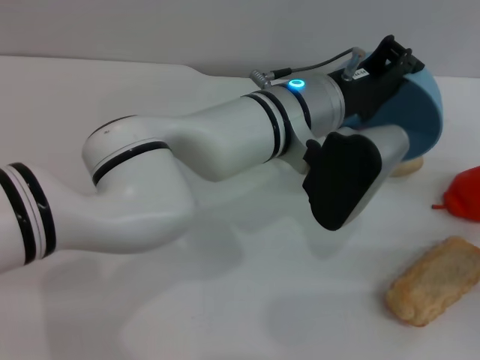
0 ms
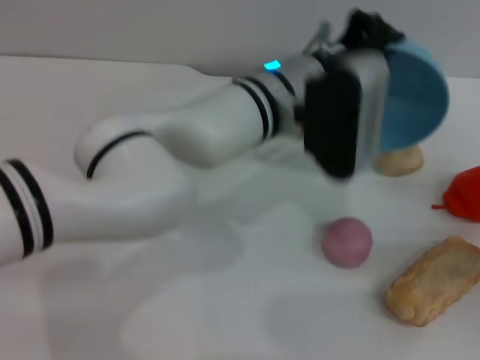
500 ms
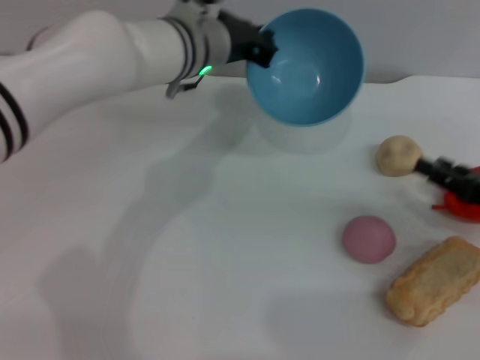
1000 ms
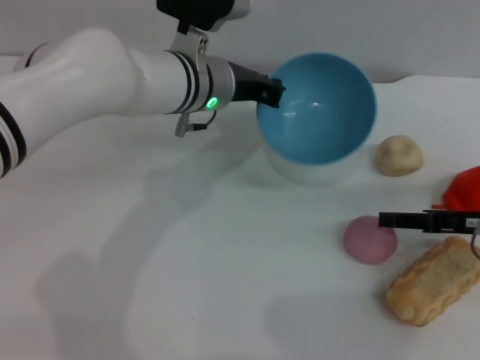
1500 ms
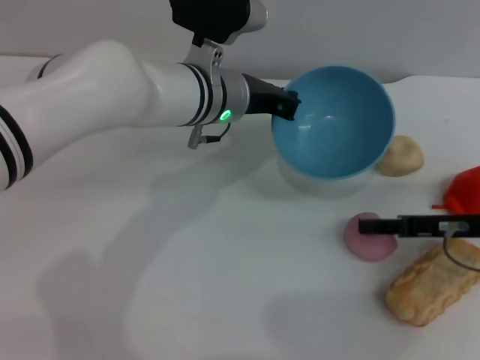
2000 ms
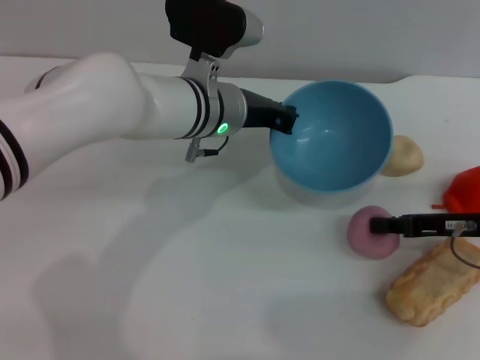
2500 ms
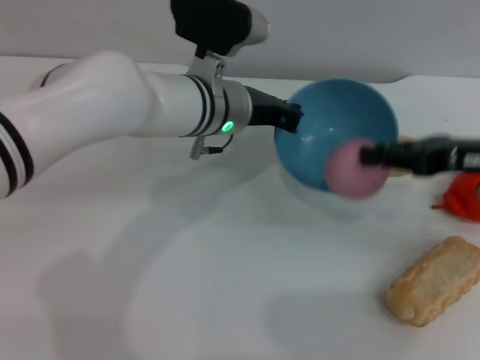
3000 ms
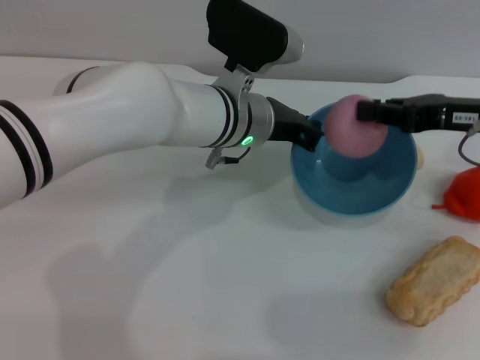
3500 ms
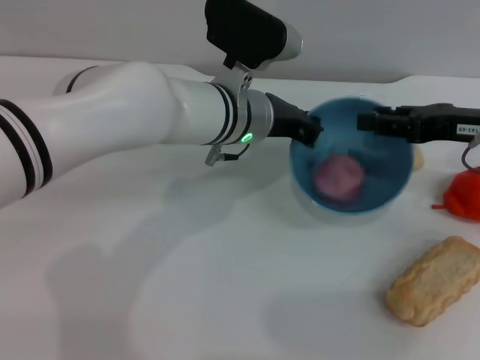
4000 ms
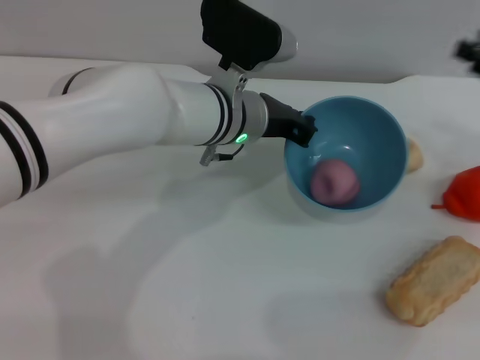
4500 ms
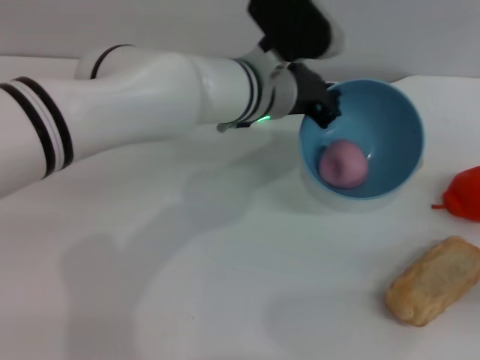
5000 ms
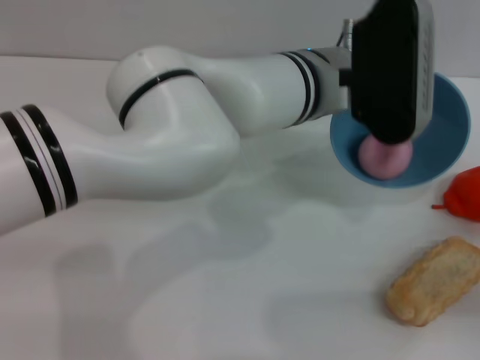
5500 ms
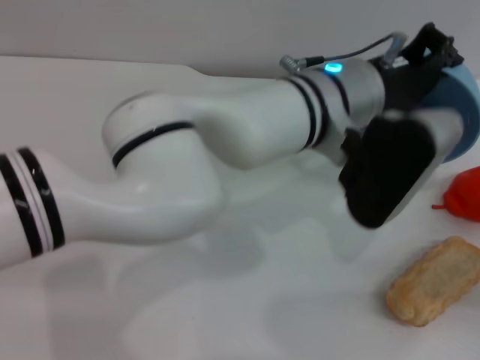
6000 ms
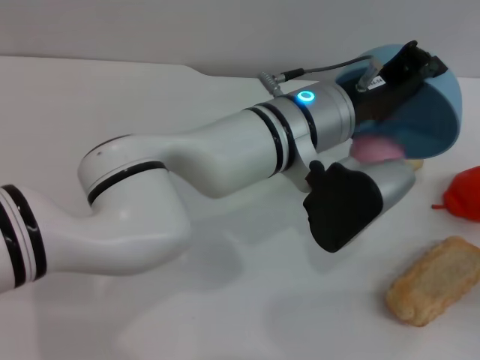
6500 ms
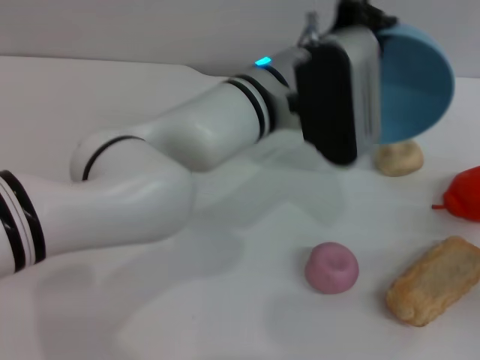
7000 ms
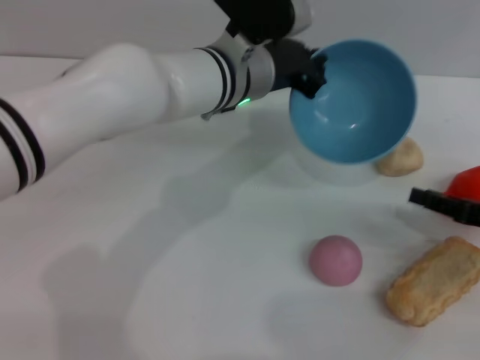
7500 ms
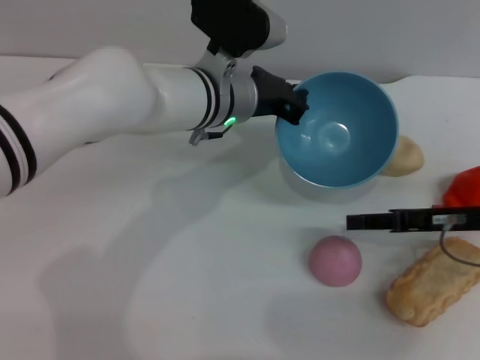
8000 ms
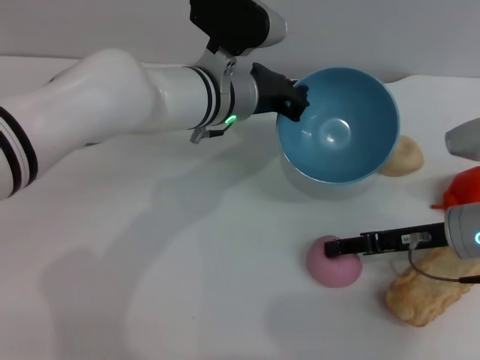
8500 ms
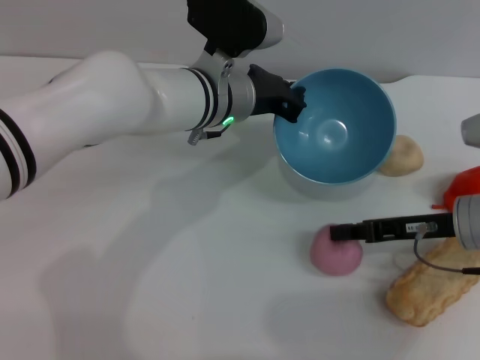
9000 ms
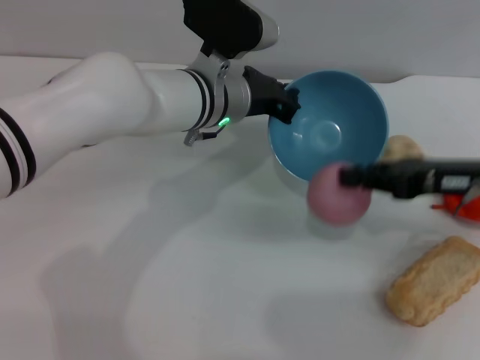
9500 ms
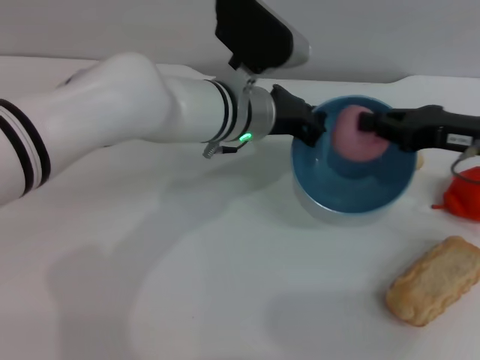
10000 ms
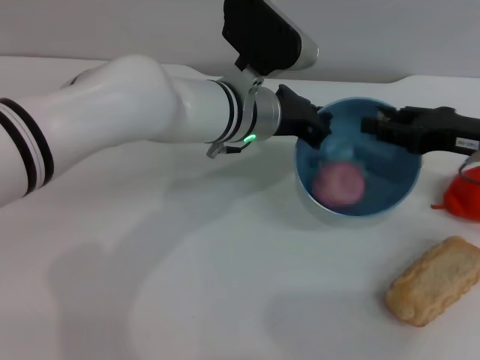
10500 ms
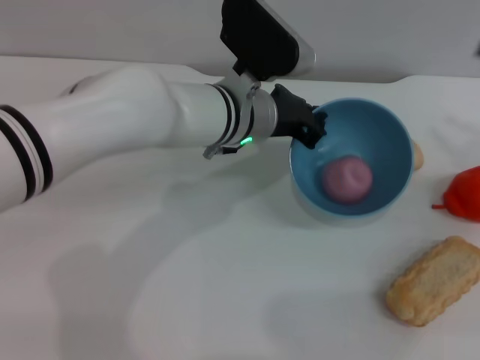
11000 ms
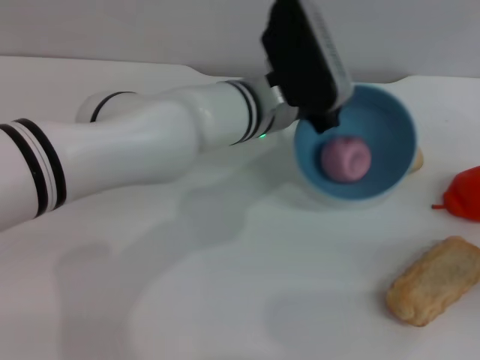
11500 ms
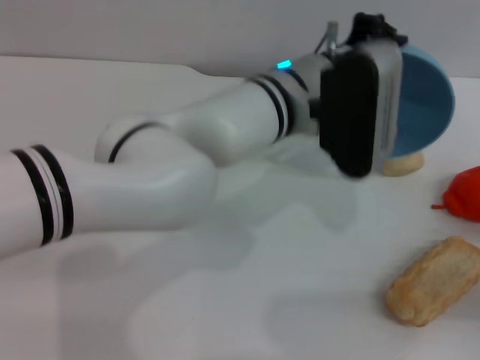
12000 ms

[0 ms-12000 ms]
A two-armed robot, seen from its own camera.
Task of the whole recording: put the peach into the blue bowl and pour it out repeatedly.
Step, 1500 ms to 2500 ms: Pick up the peach with the right gripper.
Step, 3000 ms to 4000 ms: Place the peach into the bowl.
Step, 4500 ms to 7000 ms: Pour the peach out of bowl.
Step, 8000 ms to 9000 ms: Pick up the peach with the right gripper.
Step, 9500 ms to 11000 ms: Place the peach into the bowl.
0 ms to 2000 ms: The two grippers go about 10 cm to the left and forward.
2000 ms to 4000 ms: The right gripper goes roughly 10 cm upward, and closes.
4000 ms to 6000 ms: The right gripper heads downward, backward and to the right, covering approximately 20 cm, while the left gripper shifts some 10 cm to the right and upward.
6000 ms to 8000 ms: The right gripper is displaced to the left and forward by about 15 cm. The left gripper shifts approximately 10 cm to the left, forward and downward.
8000 ms to 10000 ms: The right gripper travels upward by some 5 cm, and closes its fingers.
10000 ms to 12000 ms: The left gripper changes place by roughly 5 cm; the right gripper is displaced backward, to the right and downward by approximately 20 cm, and opens up.

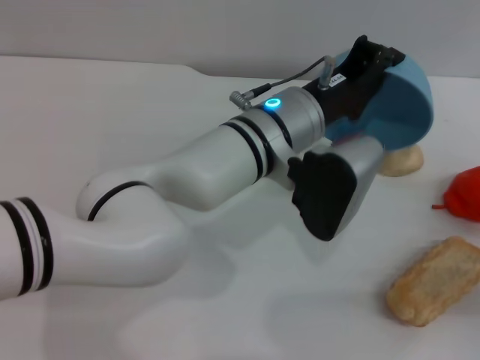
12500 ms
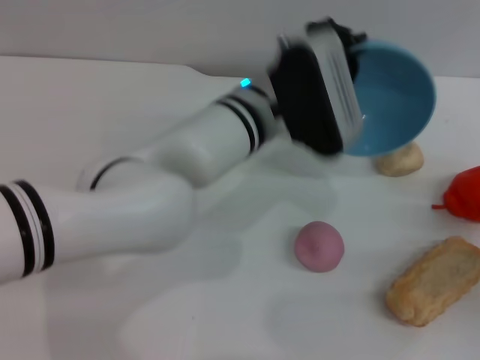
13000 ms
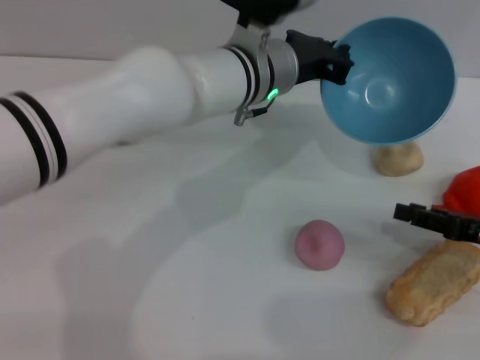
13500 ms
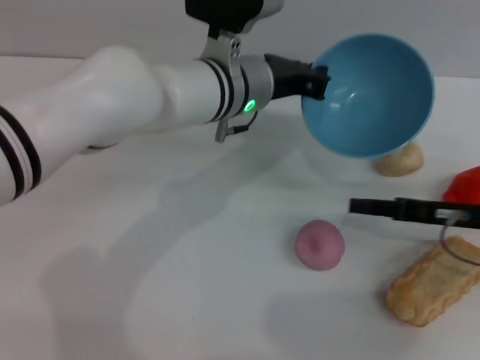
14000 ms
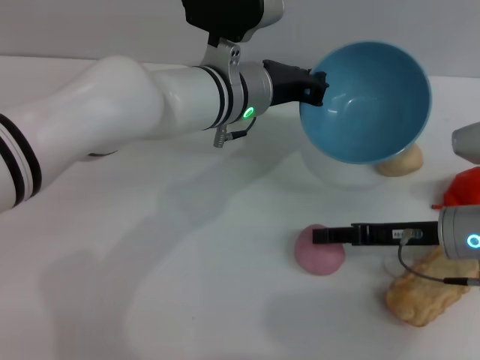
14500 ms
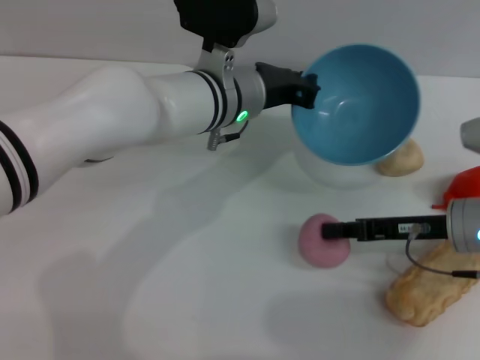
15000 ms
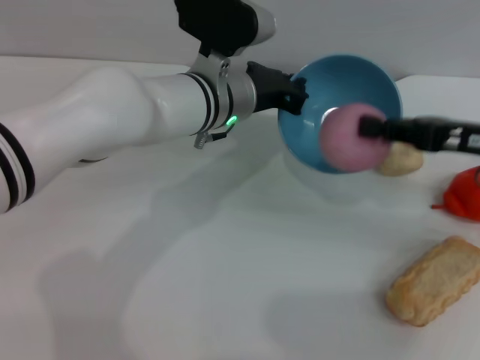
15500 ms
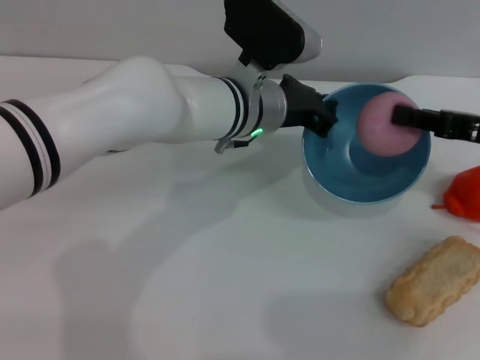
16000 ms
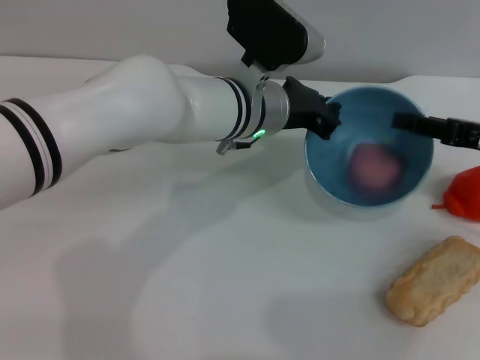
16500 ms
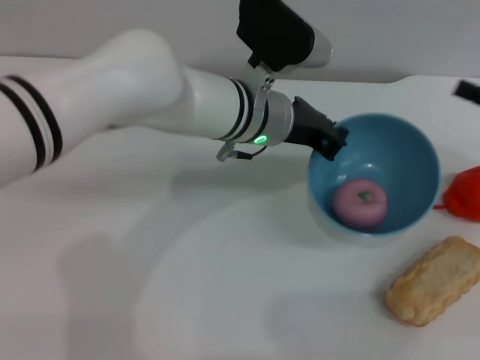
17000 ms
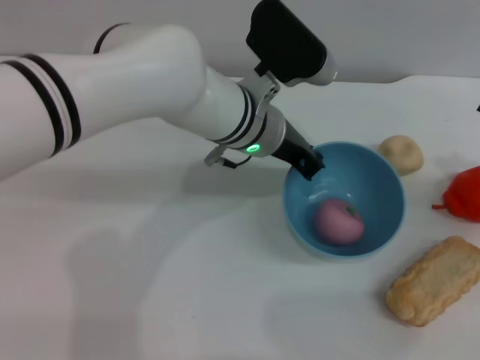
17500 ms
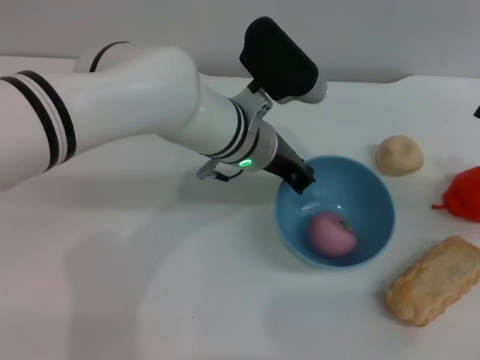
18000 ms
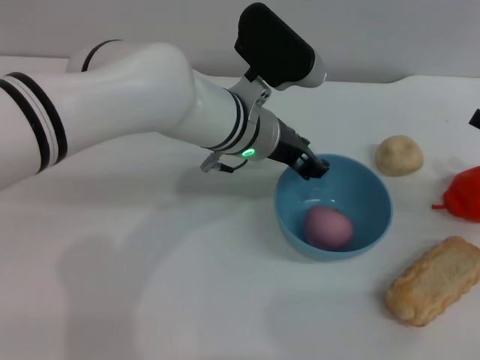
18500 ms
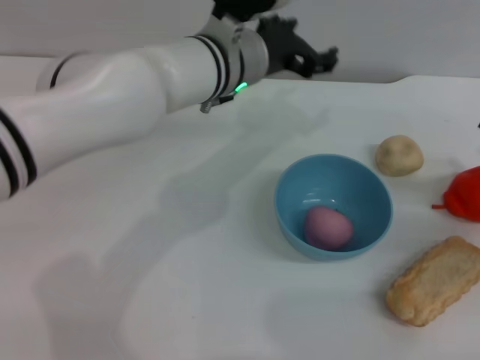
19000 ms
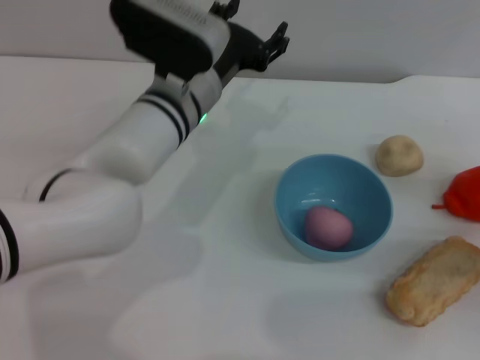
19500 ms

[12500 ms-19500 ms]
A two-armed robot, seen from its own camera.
Task of the whole recording: put the peach into the blue bowl and pour it out repeatedly.
Step, 14000 ms to 15000 ms: Pick up the peach with the right gripper.
Step, 15500 ms to 17000 ms: Place the peach into the bowl.
Step, 17500 ms to 19500 ms: Place the bowl on the table.
12500 ms to 14500 ms: The left gripper moves forward, some 5 cm; the right gripper travels to the left and forward by some 15 cm.
14500 ms to 16000 ms: The right gripper goes approximately 10 cm upward and to the right, and closes.
16000 ms to 17500 ms: The right gripper travels to the right by approximately 5 cm, and opens up.
17500 ms to 19500 ms: The right gripper shifts approximately 10 cm downward. The left gripper goes about 5 cm to the left, and opens.
